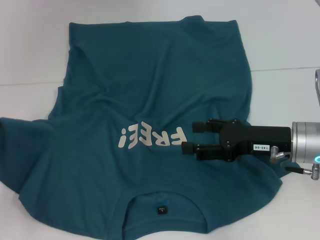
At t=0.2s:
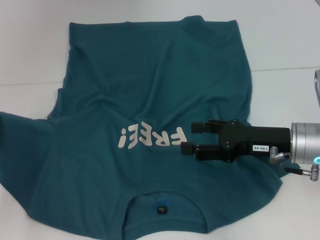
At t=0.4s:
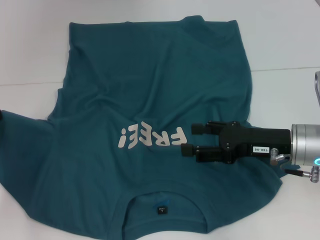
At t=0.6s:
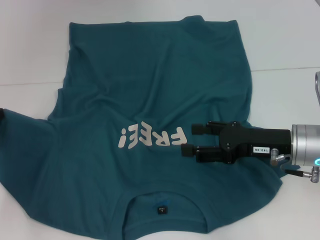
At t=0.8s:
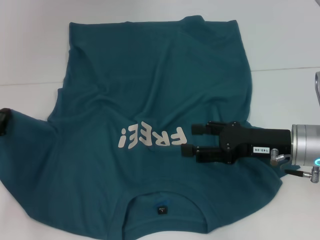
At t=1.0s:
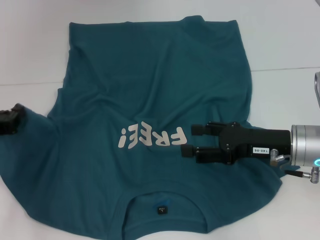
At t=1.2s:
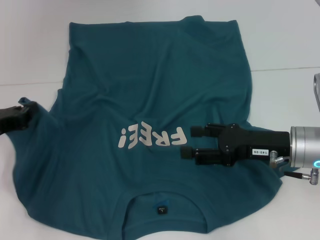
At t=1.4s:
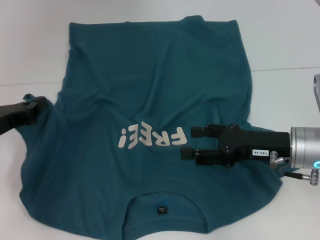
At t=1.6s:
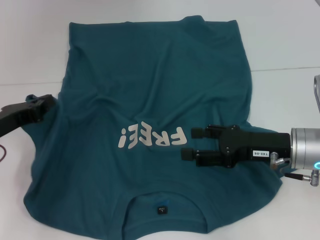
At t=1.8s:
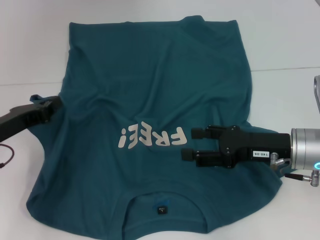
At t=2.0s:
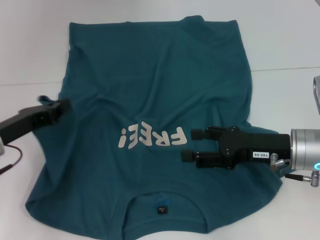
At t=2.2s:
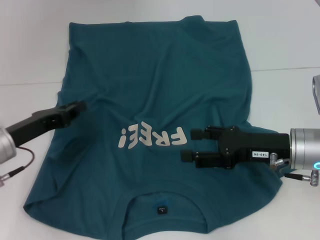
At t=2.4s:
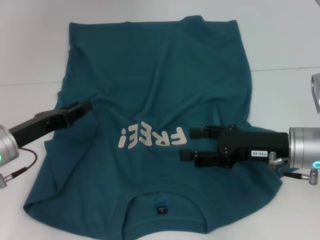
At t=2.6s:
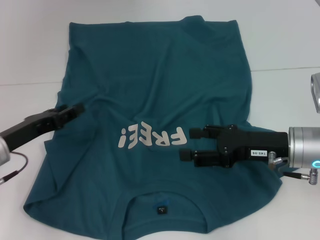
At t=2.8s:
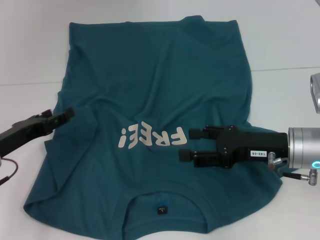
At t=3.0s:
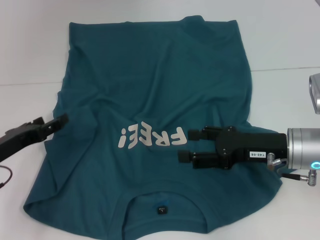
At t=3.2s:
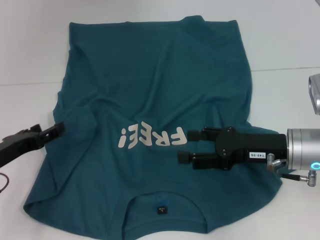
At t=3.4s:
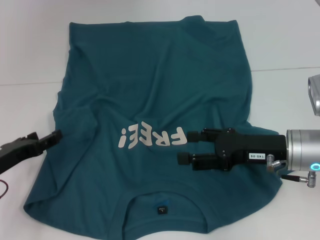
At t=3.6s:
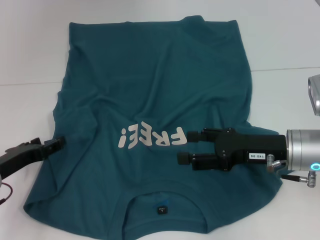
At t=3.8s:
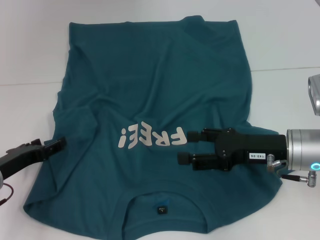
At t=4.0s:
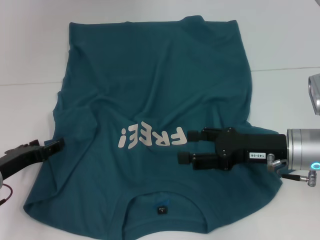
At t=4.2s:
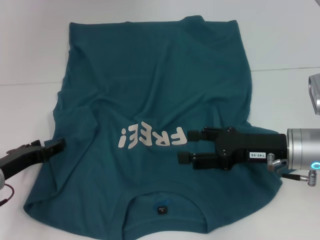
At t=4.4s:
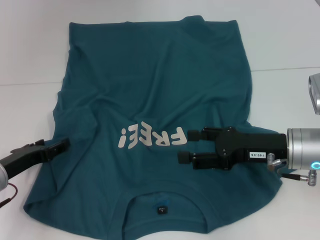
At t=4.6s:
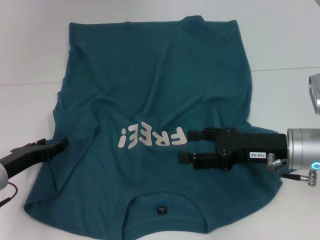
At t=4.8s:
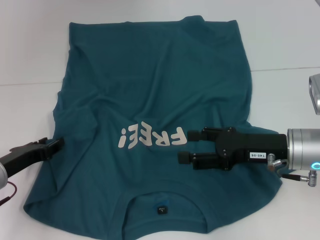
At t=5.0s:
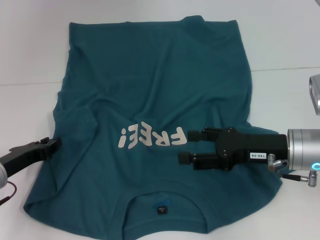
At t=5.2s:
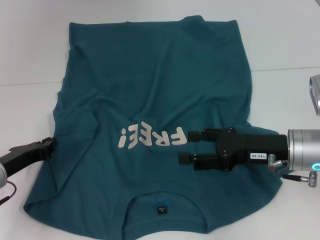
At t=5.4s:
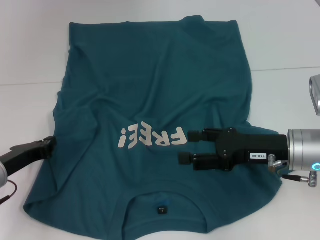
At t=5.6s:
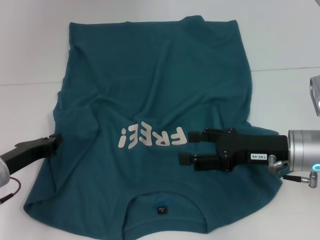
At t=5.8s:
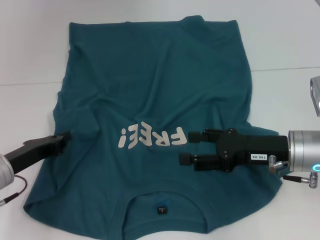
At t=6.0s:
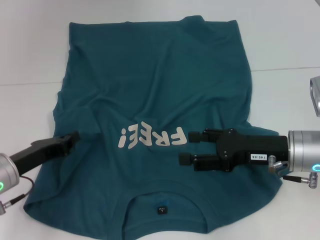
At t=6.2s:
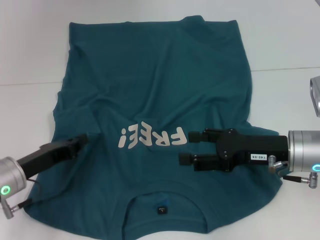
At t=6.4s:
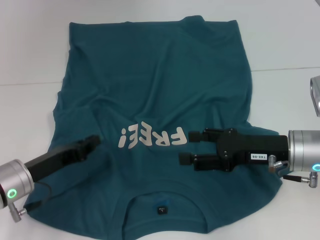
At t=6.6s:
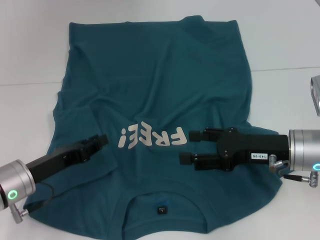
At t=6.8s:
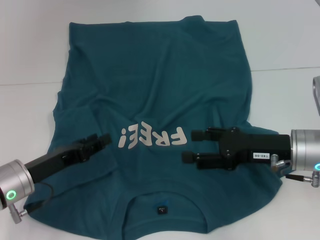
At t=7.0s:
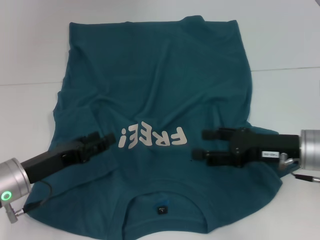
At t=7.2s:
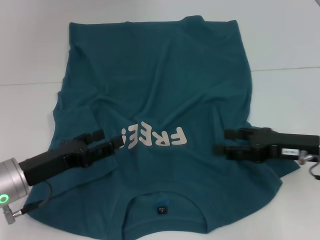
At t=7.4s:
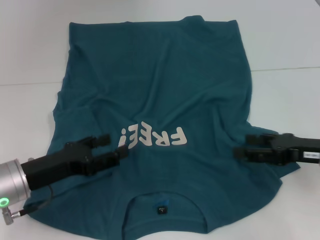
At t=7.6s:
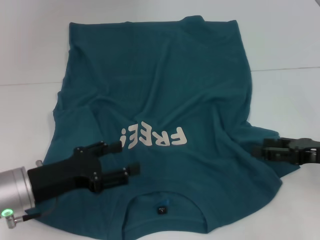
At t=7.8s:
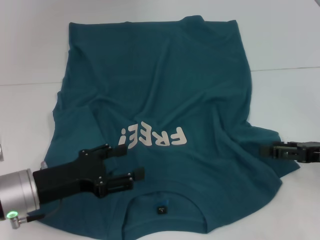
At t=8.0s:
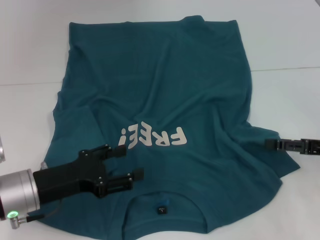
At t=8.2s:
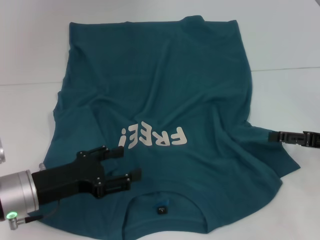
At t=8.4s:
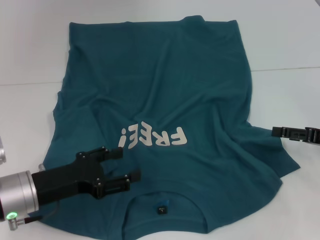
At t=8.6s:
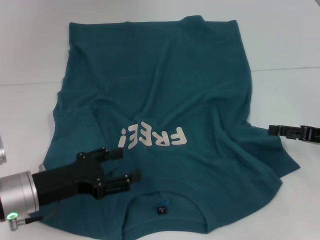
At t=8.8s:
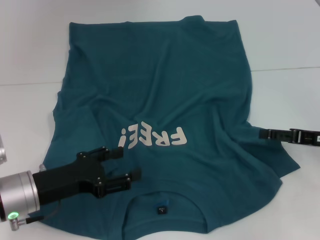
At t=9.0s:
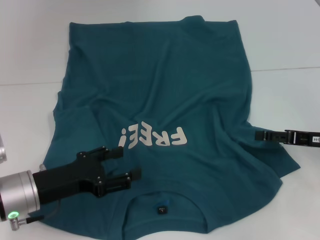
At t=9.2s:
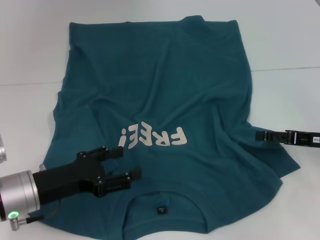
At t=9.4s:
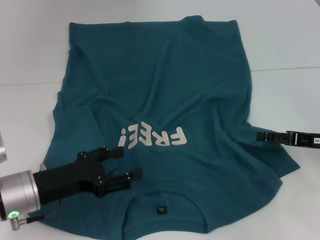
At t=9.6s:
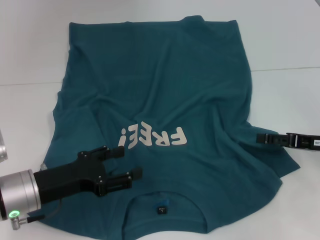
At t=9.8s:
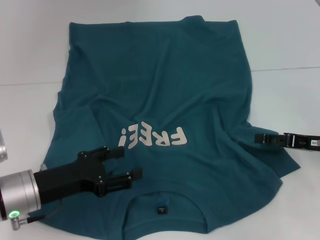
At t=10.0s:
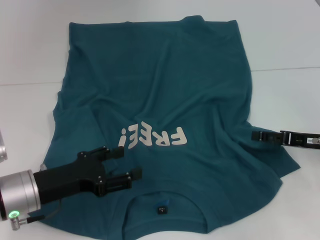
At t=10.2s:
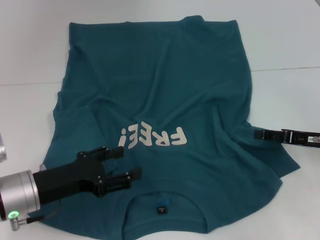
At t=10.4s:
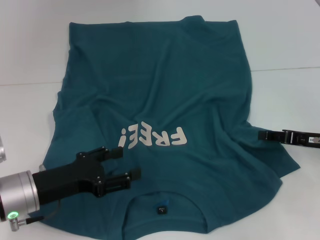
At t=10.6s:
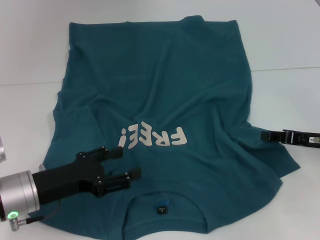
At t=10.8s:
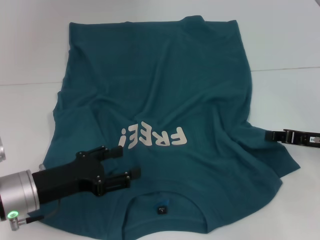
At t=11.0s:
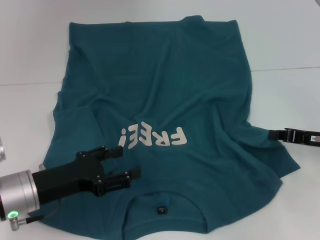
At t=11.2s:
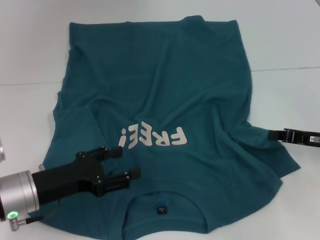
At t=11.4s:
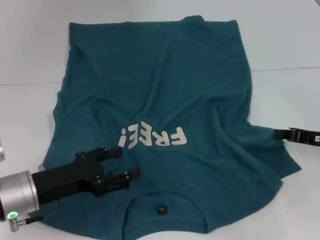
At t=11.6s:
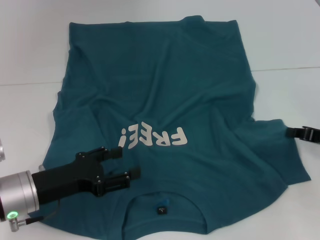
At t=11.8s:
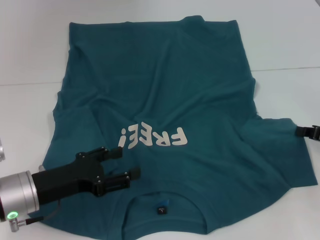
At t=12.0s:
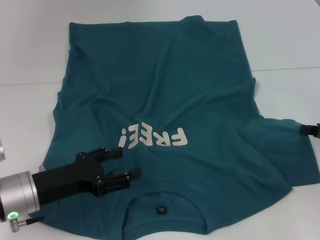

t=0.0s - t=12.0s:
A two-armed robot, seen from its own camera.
Step, t=0.0s - t=6.8s: Fold the bottom left sleeve with your left hand.
t=0.0s - t=1.6s: The left gripper shifts some 5 cm to the right.
t=1.6s - t=3.0s: The left gripper opens.
t=3.0s - t=4.4s: The grippers make only small movements.
t=4.4s - t=6.0s: The left gripper closes.
t=6.0s - t=7.6s: The left gripper ends up approximately 5 cm from where it was, and opens up. The right gripper heads to the right, covering approximately 10 cm.
t=9.0s - t=10.4s: The two grippers keep their place.
t=10.4s - t=12.0s: The right gripper closes its fingers.

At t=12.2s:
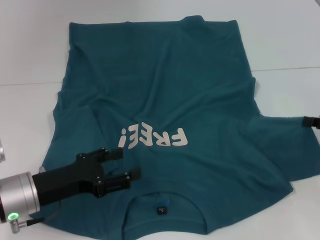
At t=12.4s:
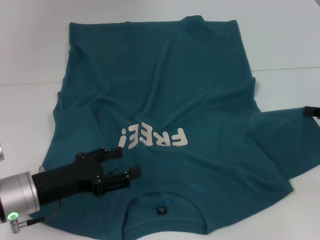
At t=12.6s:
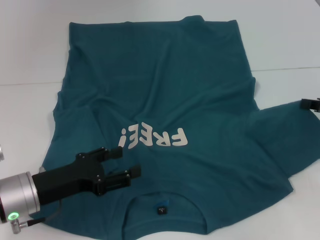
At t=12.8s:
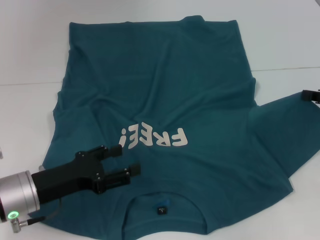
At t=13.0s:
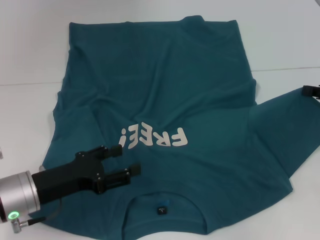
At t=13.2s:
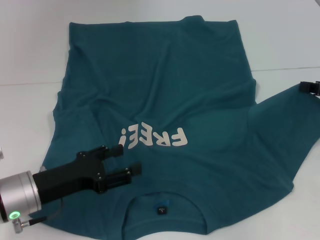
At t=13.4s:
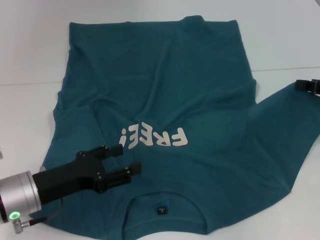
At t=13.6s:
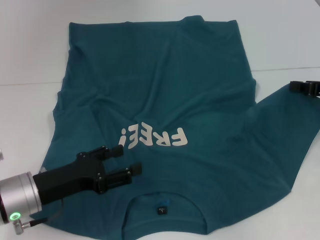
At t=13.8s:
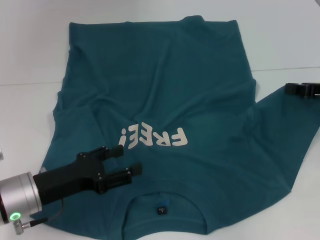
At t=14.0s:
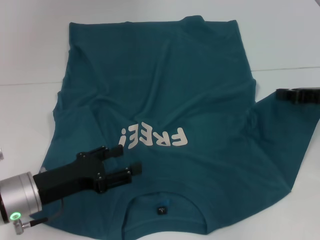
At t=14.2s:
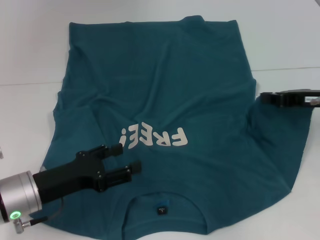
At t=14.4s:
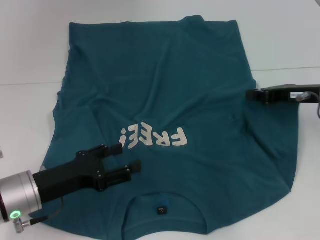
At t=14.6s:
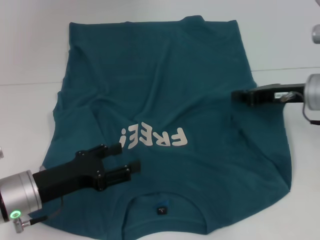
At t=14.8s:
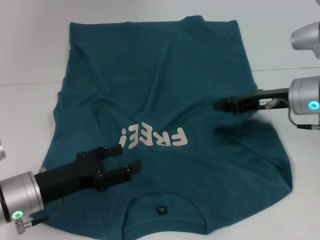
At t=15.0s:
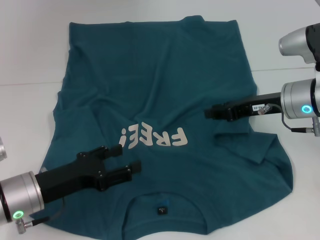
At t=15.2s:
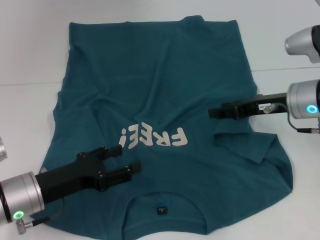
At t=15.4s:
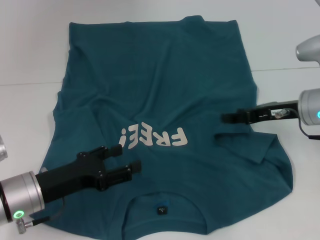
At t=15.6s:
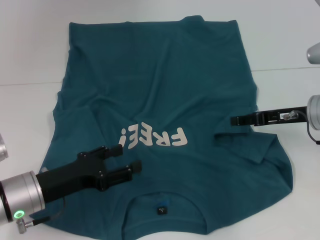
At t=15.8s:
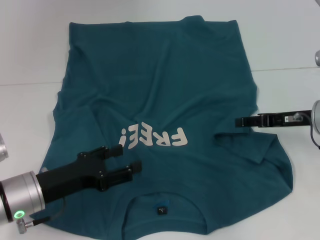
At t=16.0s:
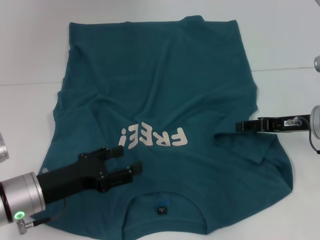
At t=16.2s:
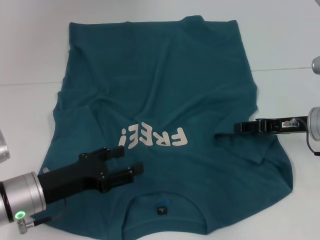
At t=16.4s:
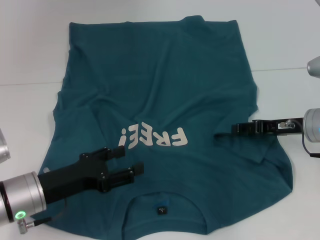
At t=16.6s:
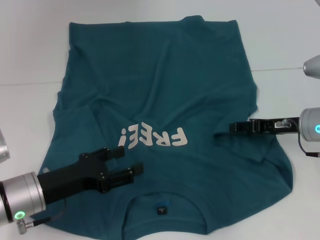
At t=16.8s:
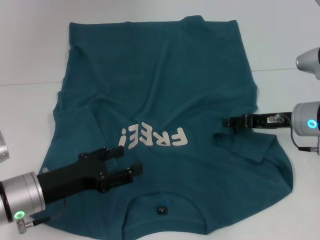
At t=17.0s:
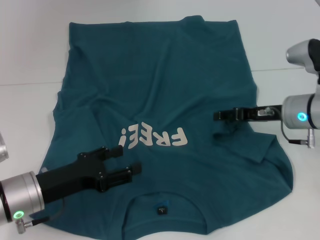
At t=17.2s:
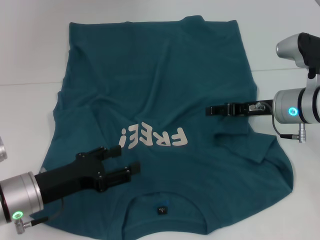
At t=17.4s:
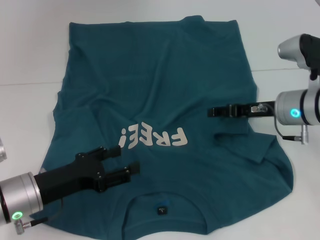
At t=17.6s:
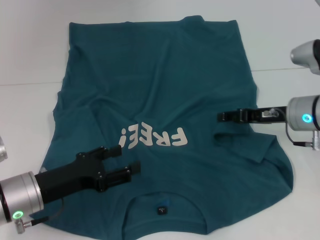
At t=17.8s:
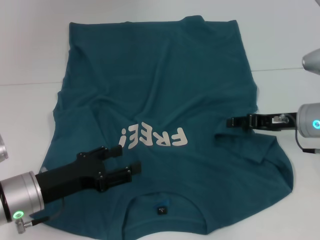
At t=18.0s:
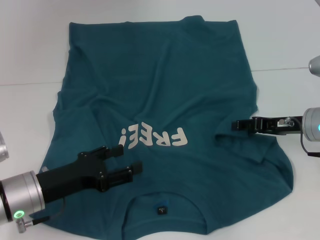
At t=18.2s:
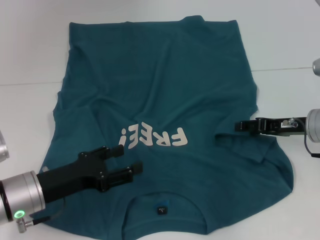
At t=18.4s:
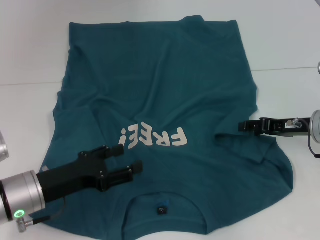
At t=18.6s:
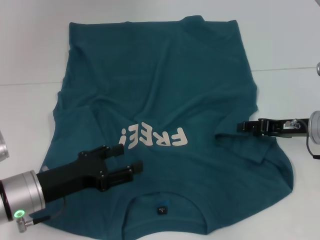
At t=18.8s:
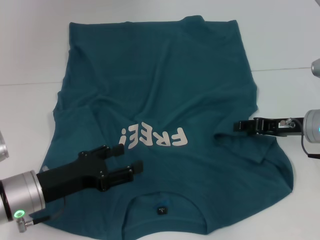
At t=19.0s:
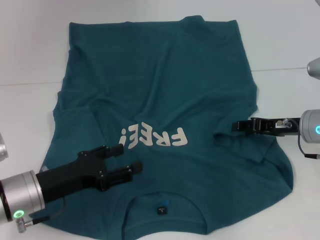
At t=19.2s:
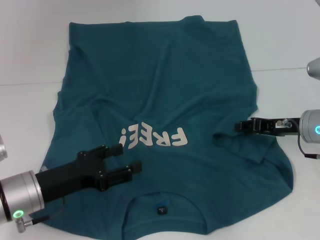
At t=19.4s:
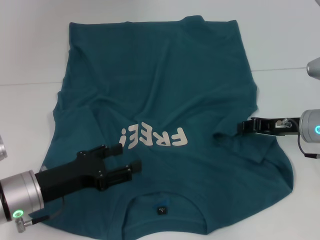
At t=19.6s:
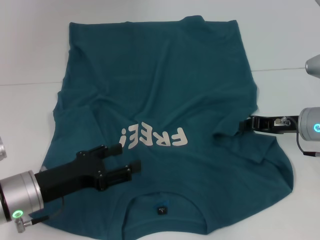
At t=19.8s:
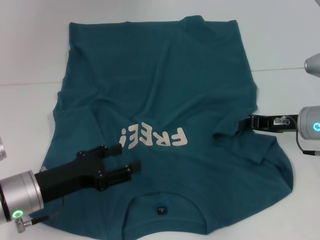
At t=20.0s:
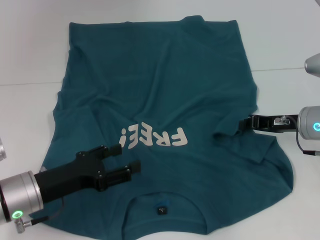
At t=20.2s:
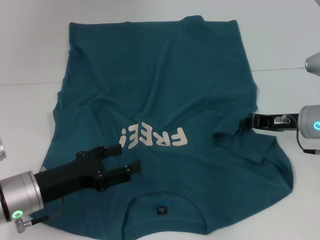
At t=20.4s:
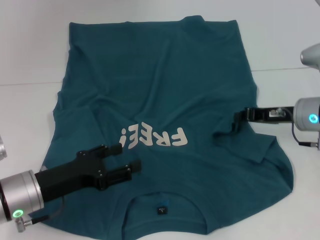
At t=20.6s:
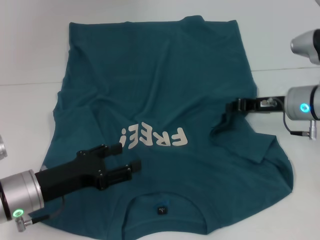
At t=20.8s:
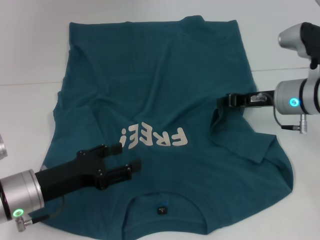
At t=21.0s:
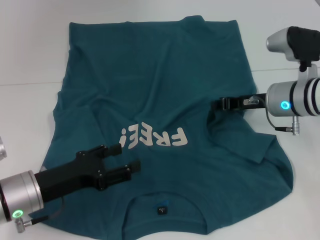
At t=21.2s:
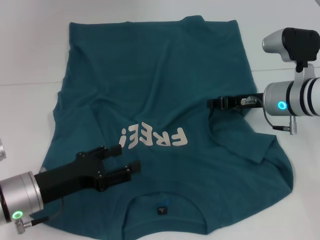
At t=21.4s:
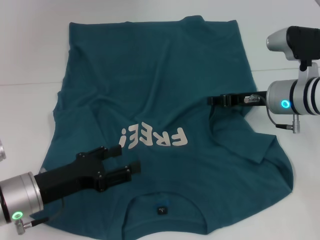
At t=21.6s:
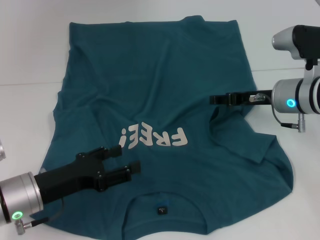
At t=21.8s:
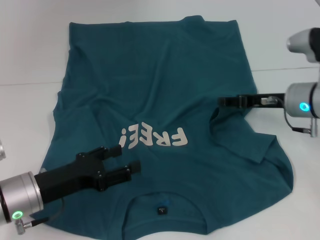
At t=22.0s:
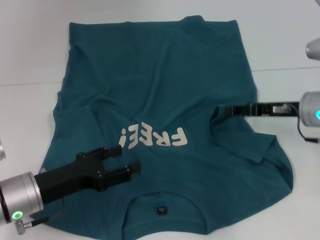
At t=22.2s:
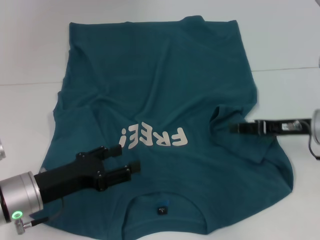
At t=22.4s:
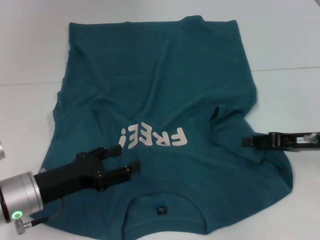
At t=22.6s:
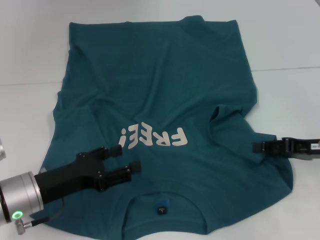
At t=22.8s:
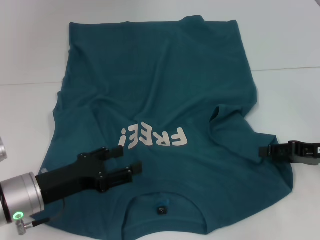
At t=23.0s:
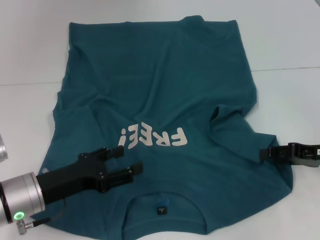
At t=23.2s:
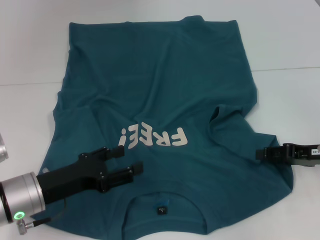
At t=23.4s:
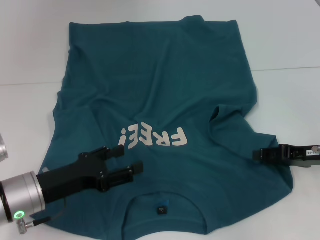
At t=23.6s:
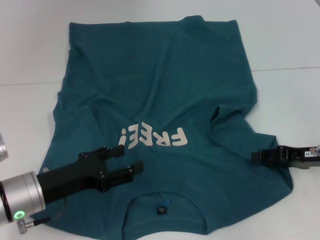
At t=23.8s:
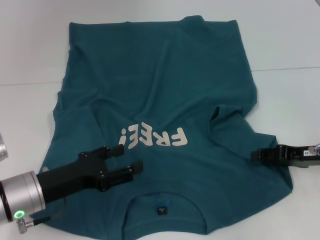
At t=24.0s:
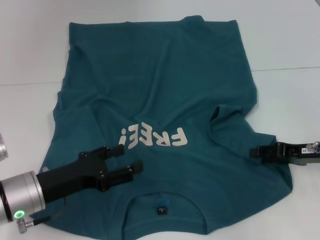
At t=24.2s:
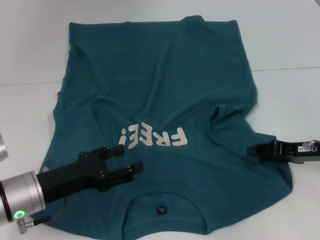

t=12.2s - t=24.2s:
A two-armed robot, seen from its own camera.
t=12.2s - t=13.8s: The right gripper travels upward by roughly 5 cm.
t=13.8s - t=15.2s: The right gripper moves to the left, about 10 cm.
t=15.2s - t=16.6s: The right gripper ends up about 5 cm from where it was, and opens up.
t=16.6s - t=18.2s: The grippers move only a little.
t=18.2s - t=19.8s: The right gripper closes its fingers.
t=19.8s - t=21.2s: The right gripper goes approximately 5 cm to the left.
t=21.2s - t=22.6s: The right gripper heads to the right and backward, covering about 15 cm, and opens up.
t=22.6s - t=24.2s: The grippers make only small movements.
